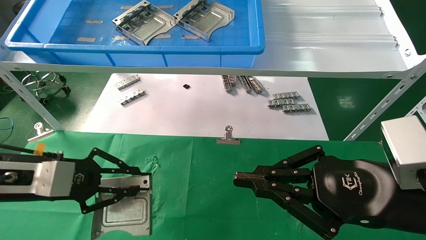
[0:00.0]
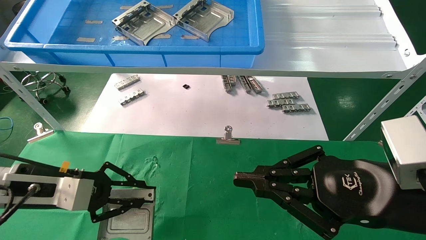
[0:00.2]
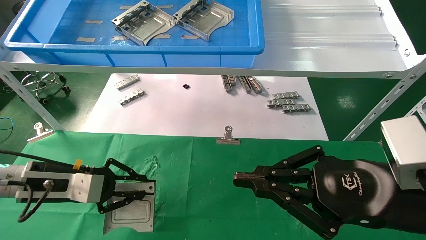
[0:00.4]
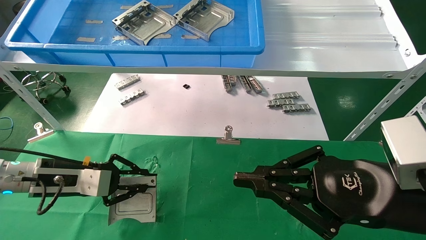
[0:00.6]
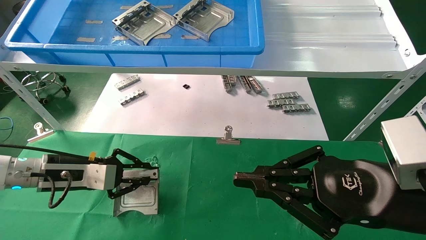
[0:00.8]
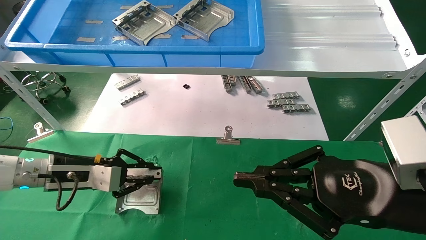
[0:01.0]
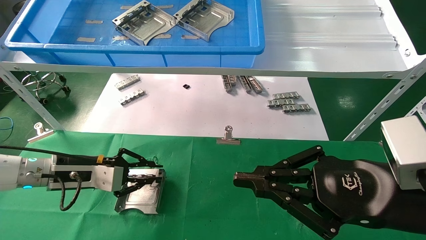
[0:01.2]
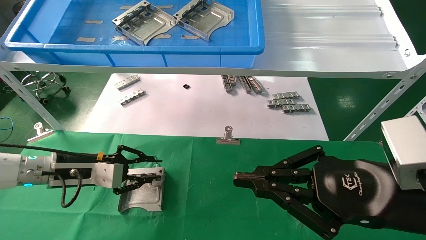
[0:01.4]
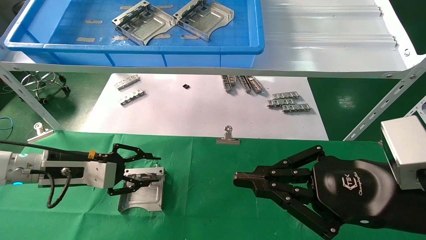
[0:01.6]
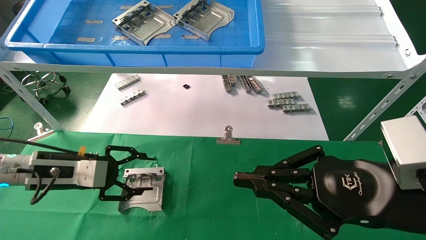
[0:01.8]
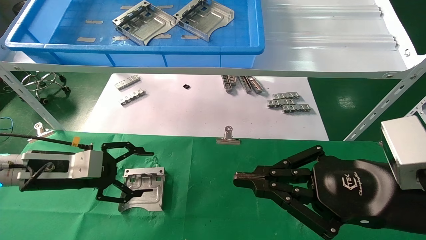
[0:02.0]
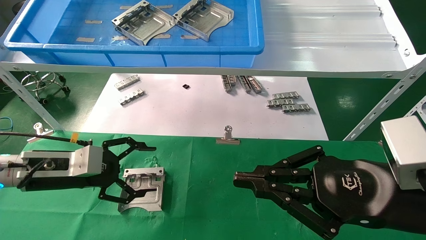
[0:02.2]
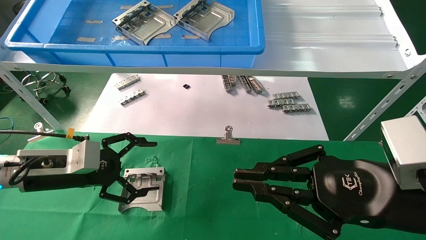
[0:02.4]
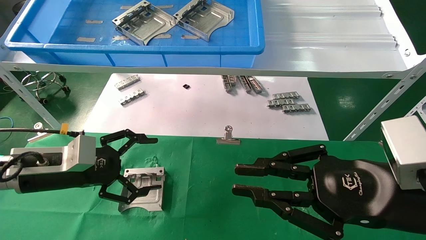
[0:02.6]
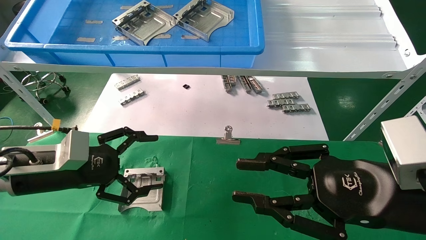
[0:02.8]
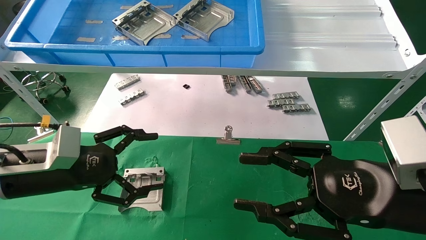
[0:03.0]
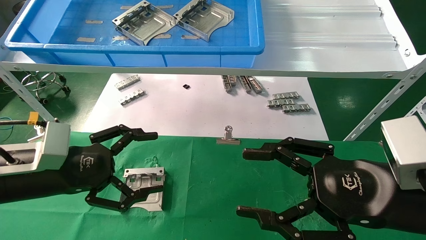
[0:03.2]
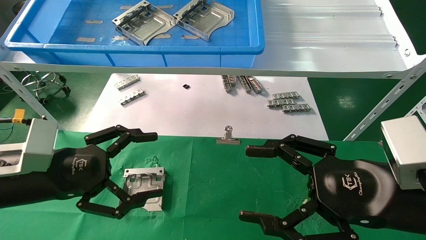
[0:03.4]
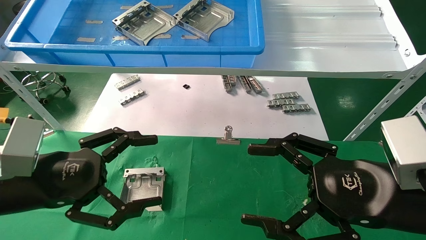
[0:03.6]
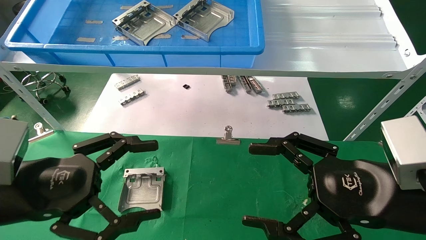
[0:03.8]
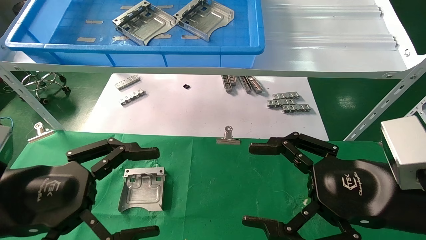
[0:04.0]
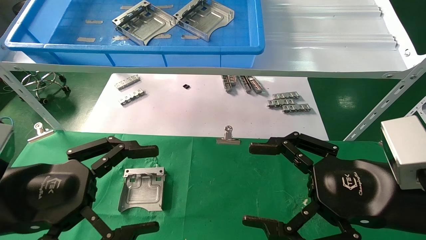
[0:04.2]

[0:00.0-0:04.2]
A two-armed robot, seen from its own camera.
Task of the whole recording: use the mechanical arm to pick up the parts and place them on the table.
0:00.0 to 0:01.4: The left gripper moves forward and downward, about 10 cm.
0:01.4 to 0:02.8: The left gripper goes roughly 5 cm backward, and opens up.
0:02.8 to 0:04.2: The right gripper opens, while the left gripper goes roughly 10 cm backward.
